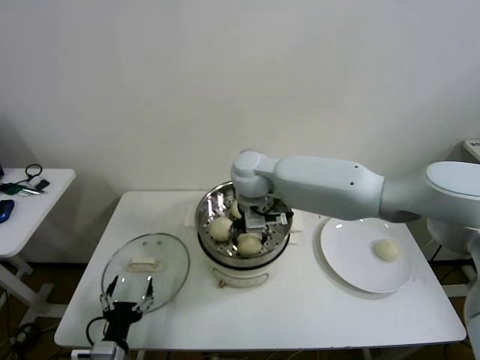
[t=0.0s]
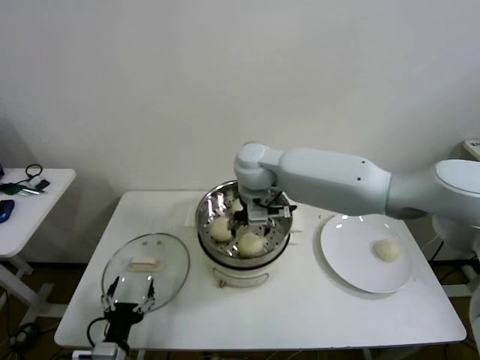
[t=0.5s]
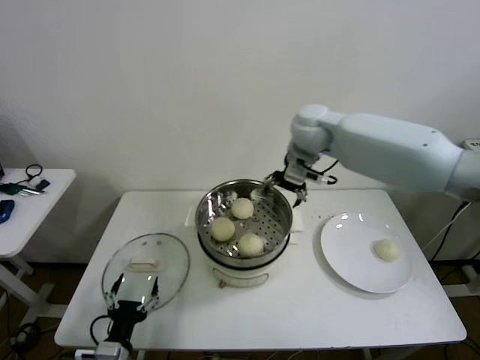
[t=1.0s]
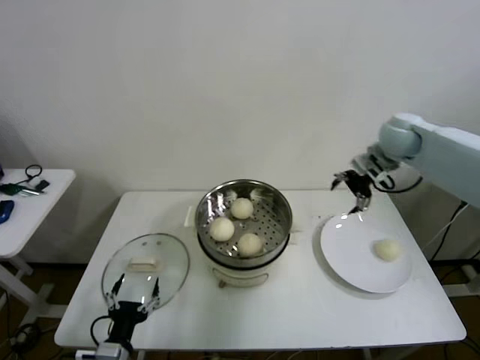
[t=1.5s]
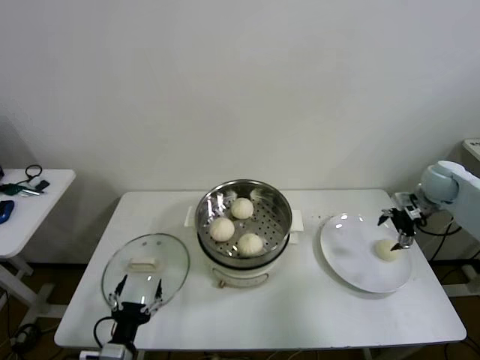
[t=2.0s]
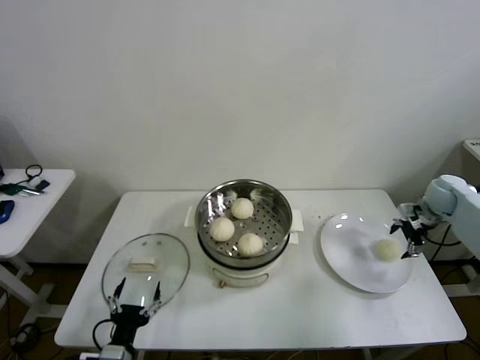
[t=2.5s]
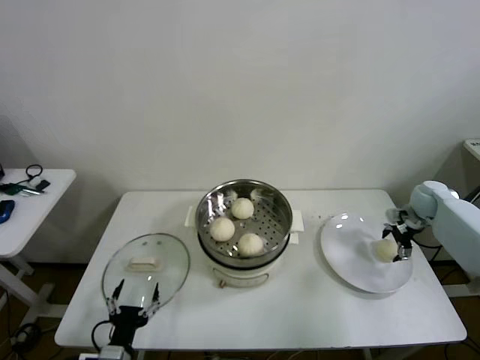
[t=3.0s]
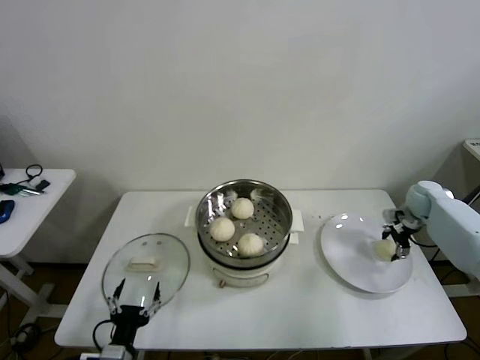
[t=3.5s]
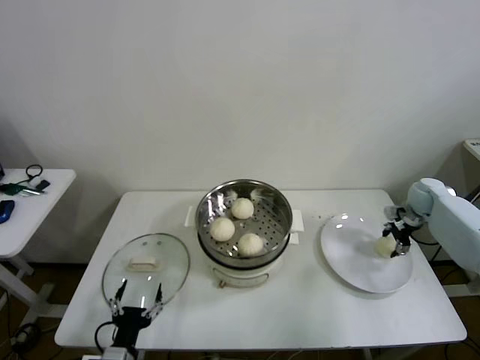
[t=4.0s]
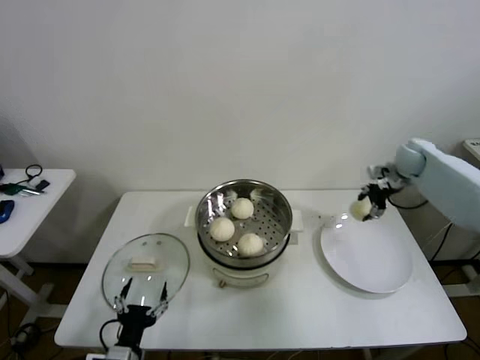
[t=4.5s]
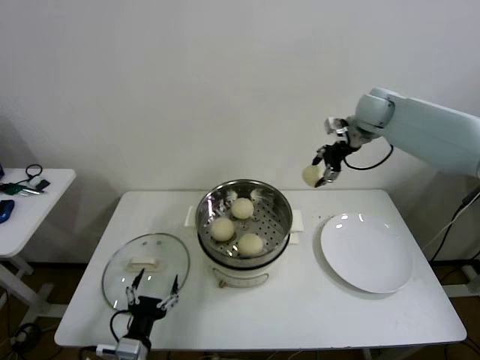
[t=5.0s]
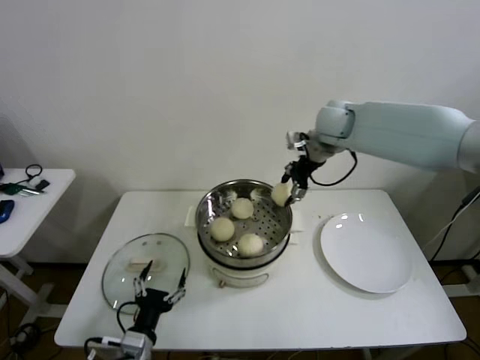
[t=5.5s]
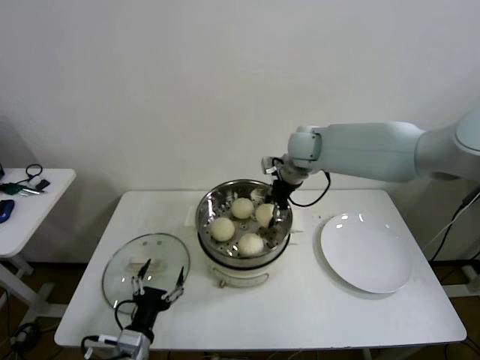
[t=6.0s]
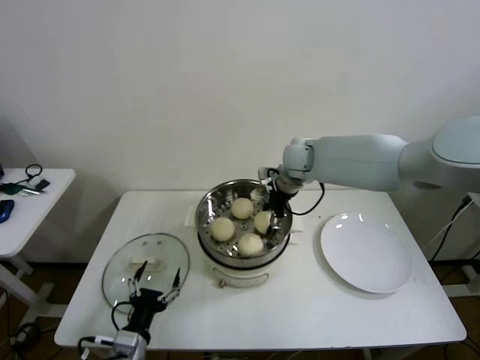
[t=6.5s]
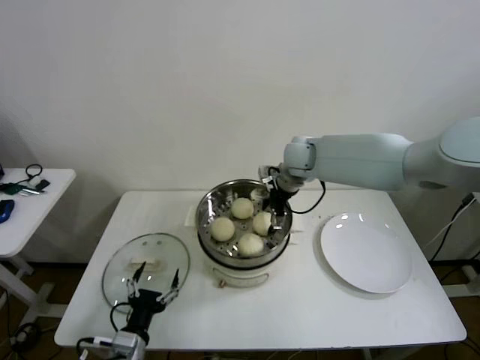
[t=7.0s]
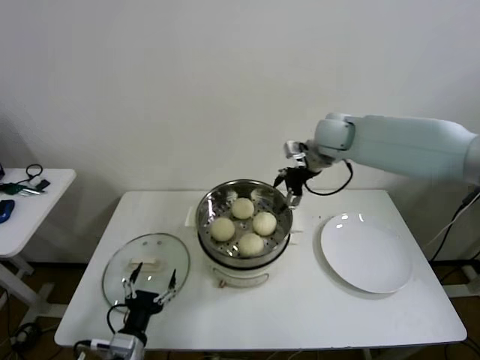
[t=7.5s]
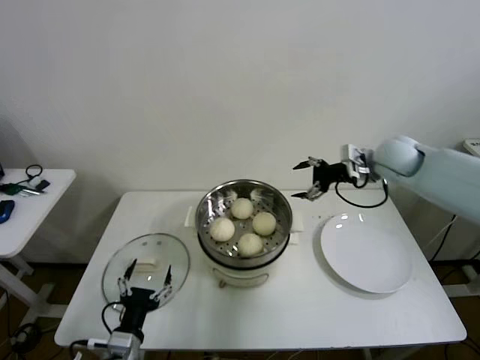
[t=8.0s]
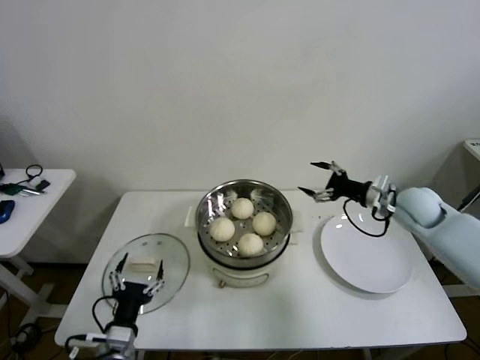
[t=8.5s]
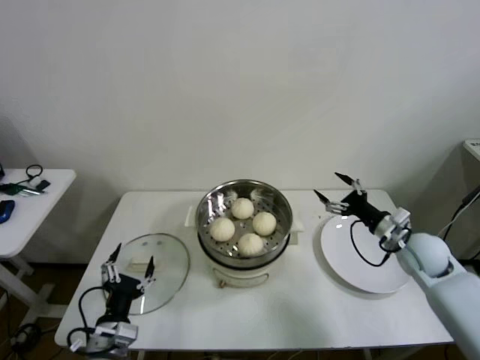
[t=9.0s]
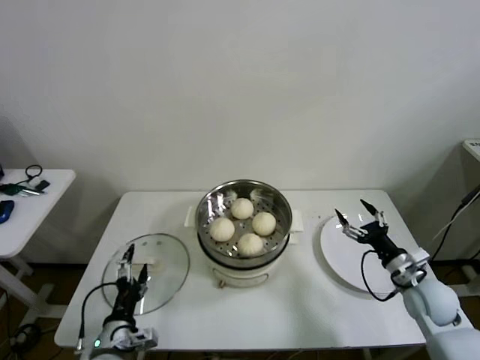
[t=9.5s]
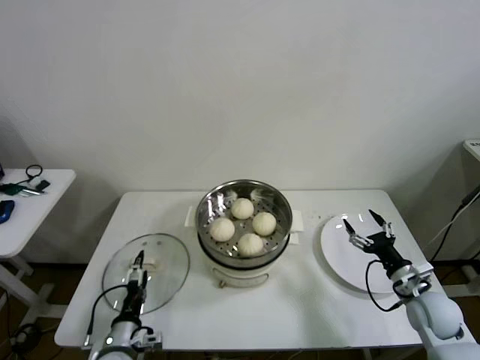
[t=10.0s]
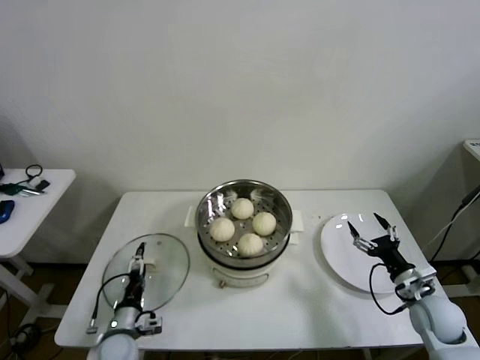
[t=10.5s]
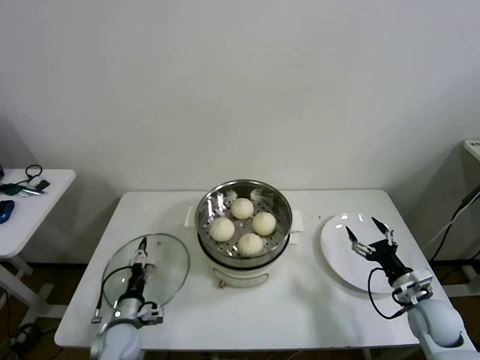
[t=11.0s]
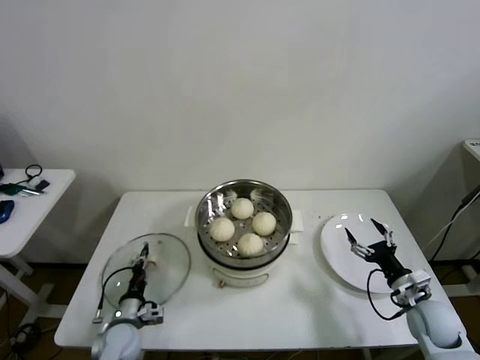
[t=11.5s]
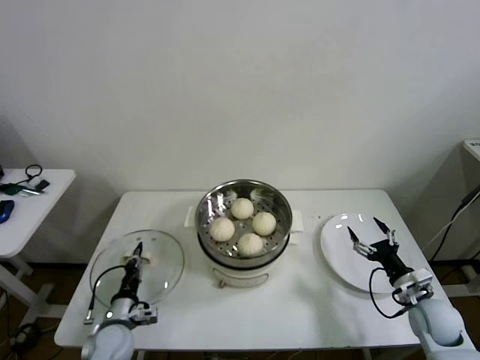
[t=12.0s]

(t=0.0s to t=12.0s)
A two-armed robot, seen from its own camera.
Step, t=0.5s - t=3.5s: Grasp the baozi in the plate with right gripper.
Step, t=4.0s - t=6.5s: Place the baozi on the steamer with right gripper.
Step, t=7.0s - t=11.5s: Grasp the pot lid with left gripper.
t=0.0s - t=2.0s: The right gripper goes some 50 cm to the right, and opens its fingers.
t=2.0s - t=4.0s: The right gripper heads downward, covering approximately 10 cm, and closes its fingers.
t=4.0s - t=6.0s: The right gripper is displaced to the left and upward by some 40 cm.
t=6.0s - t=8.0s: The right gripper travels to the right by about 20 cm, and opens up.
t=8.0s - t=10.0s: The right gripper shifts some 35 cm downward and backward; the left gripper changes place by some 5 cm.
t=10.0s - t=12.0s: The left gripper is displaced forward by roughly 5 cm, and closes.

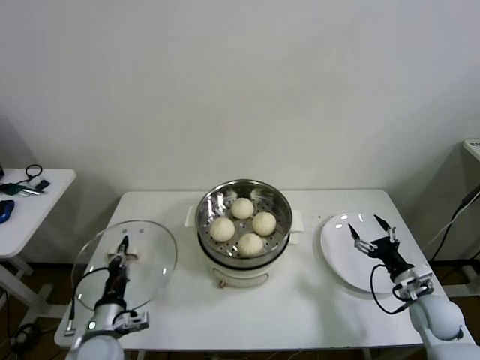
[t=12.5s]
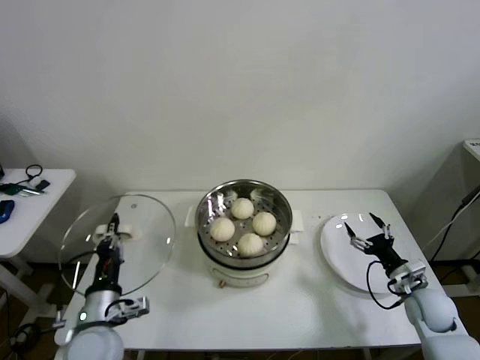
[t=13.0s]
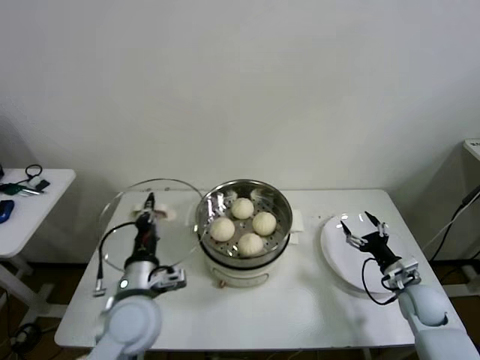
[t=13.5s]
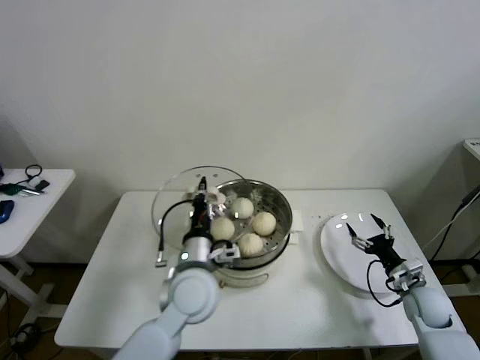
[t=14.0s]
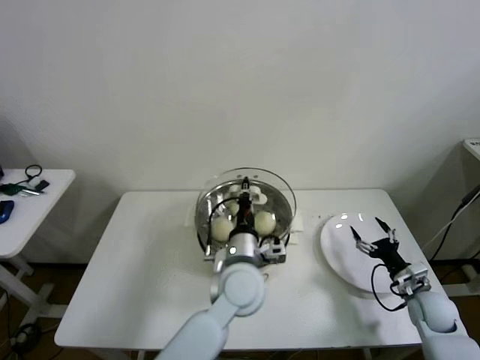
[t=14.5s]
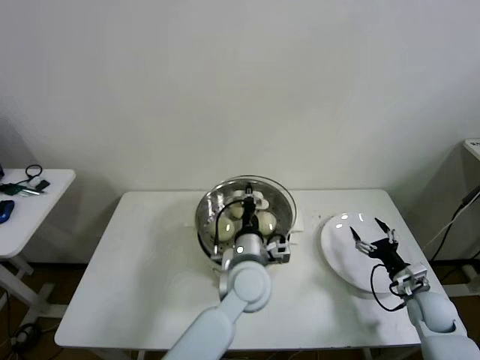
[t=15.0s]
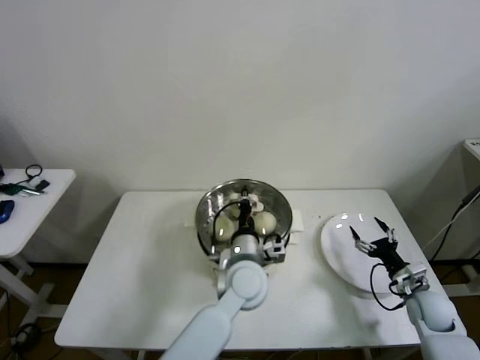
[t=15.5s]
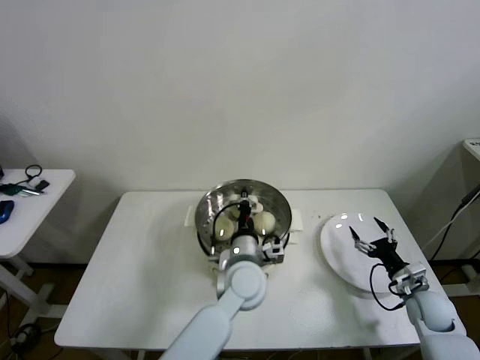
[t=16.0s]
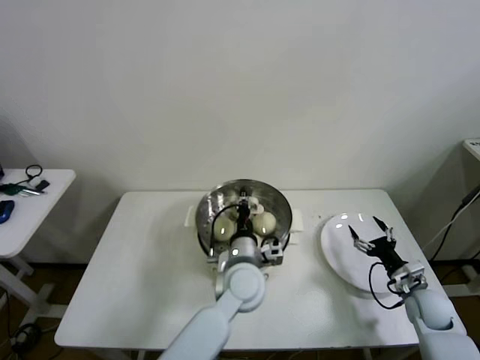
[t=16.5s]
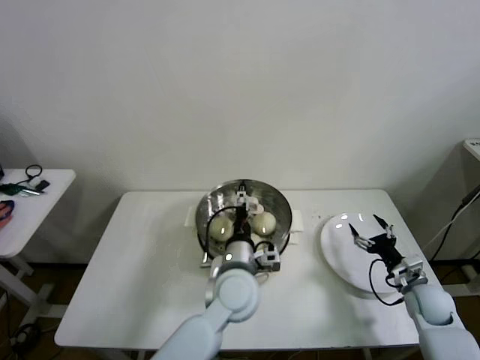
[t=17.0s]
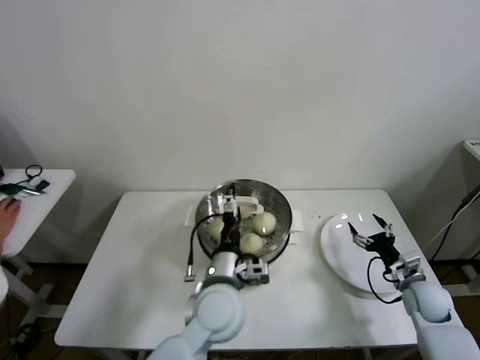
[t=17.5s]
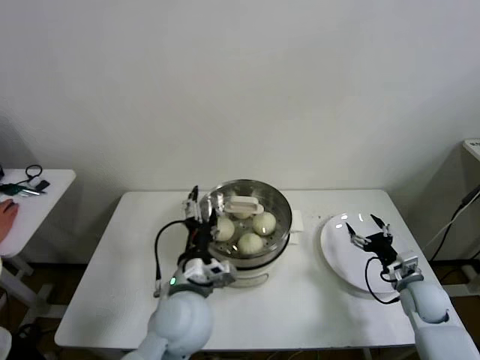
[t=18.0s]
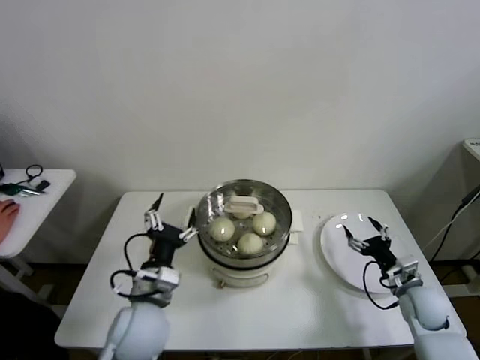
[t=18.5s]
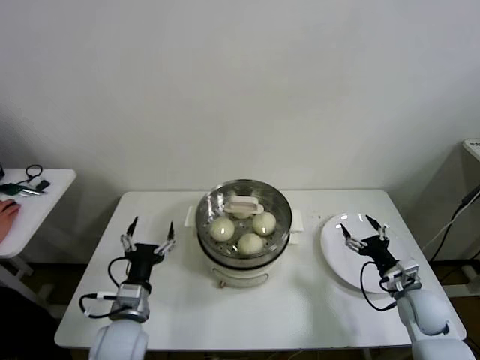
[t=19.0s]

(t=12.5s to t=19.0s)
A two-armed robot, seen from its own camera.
Step, t=12.5s - t=16.5s: Place the pot lid on the steamer with left gripper.
t=12.5s - t=14.5s: The left gripper moves to the right and upward, some 30 cm.
t=14.5s - t=17.0s: The left gripper opens up.
t=17.0s - t=19.0s: The left gripper travels to the left by roughly 20 cm.
